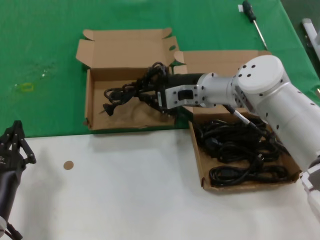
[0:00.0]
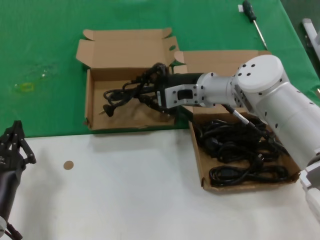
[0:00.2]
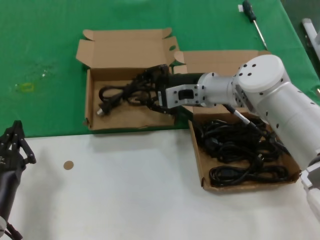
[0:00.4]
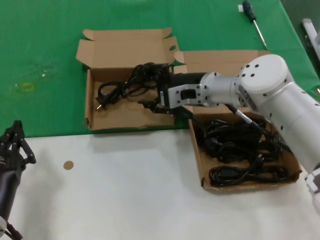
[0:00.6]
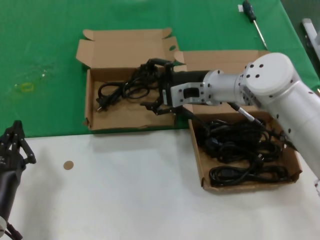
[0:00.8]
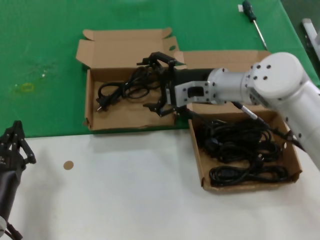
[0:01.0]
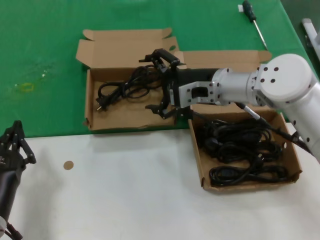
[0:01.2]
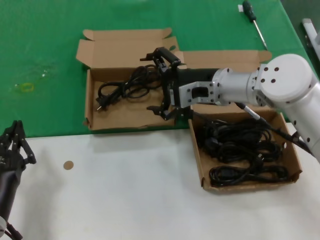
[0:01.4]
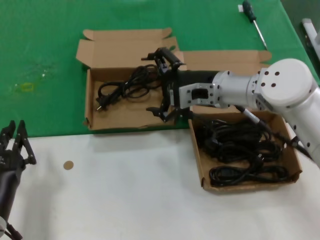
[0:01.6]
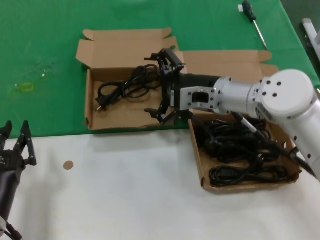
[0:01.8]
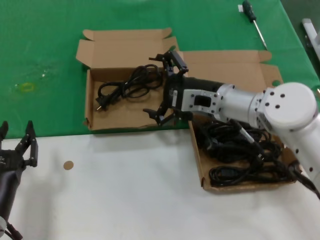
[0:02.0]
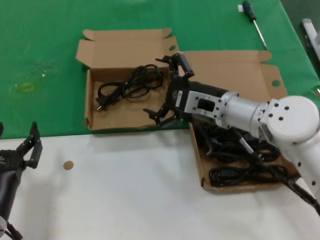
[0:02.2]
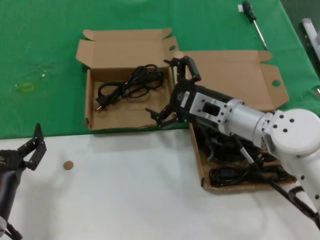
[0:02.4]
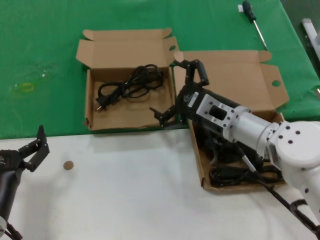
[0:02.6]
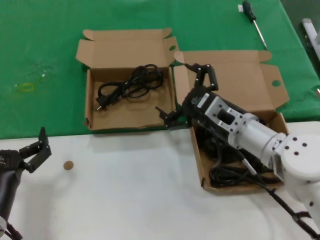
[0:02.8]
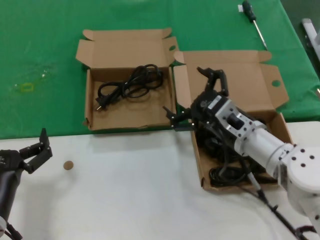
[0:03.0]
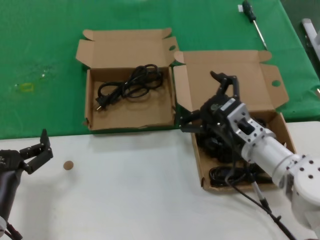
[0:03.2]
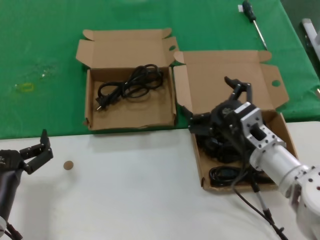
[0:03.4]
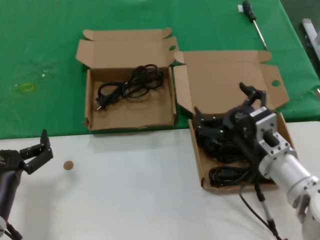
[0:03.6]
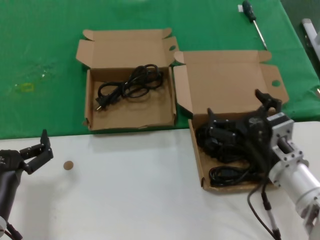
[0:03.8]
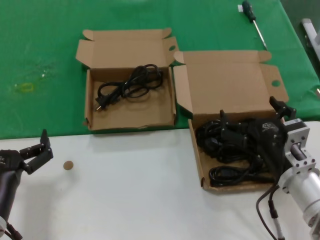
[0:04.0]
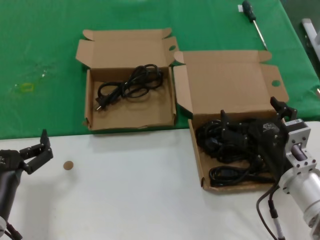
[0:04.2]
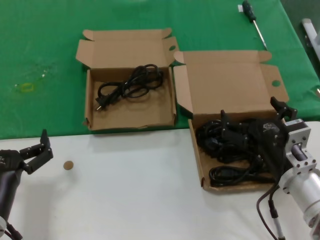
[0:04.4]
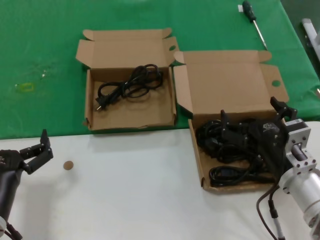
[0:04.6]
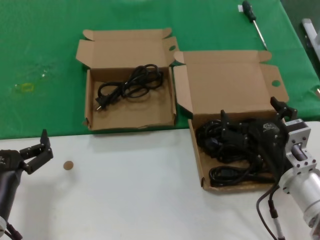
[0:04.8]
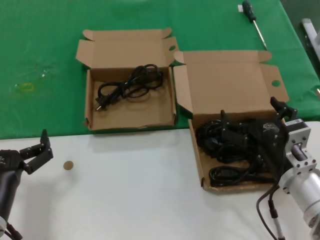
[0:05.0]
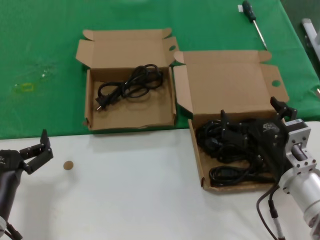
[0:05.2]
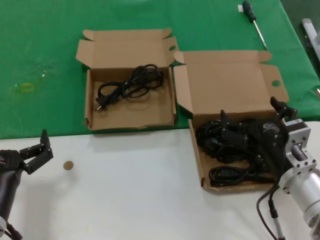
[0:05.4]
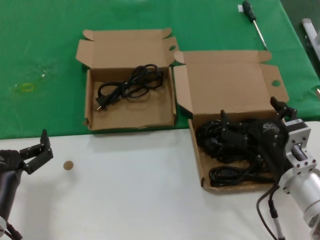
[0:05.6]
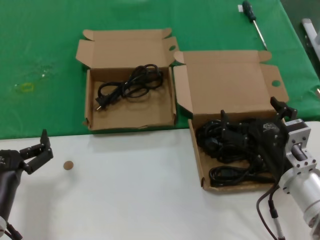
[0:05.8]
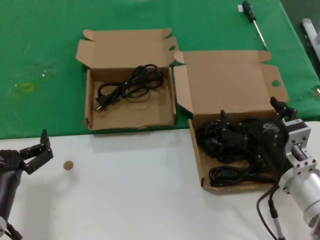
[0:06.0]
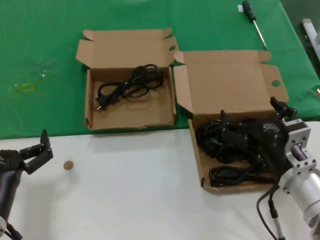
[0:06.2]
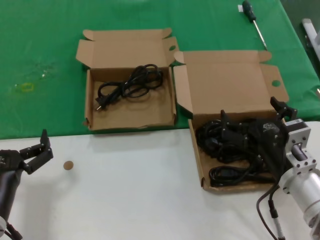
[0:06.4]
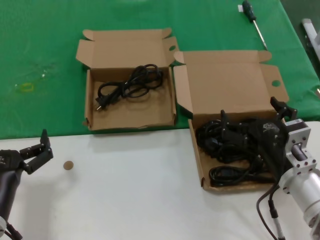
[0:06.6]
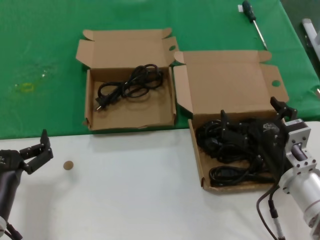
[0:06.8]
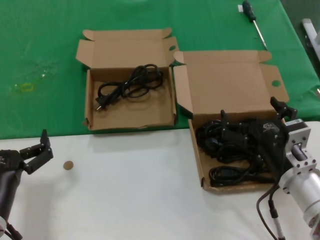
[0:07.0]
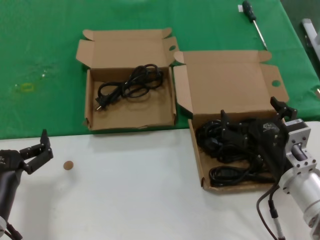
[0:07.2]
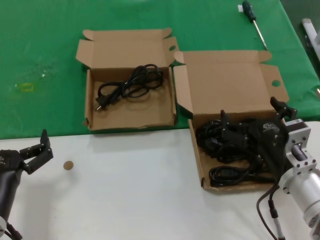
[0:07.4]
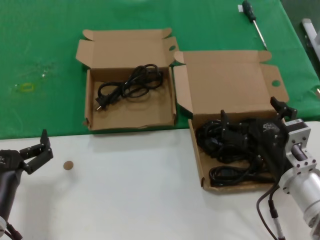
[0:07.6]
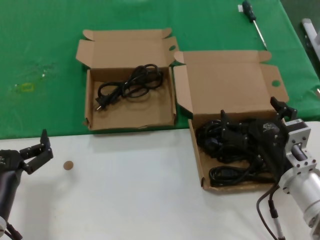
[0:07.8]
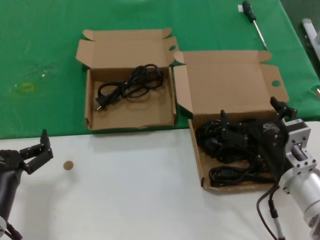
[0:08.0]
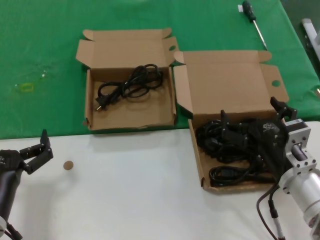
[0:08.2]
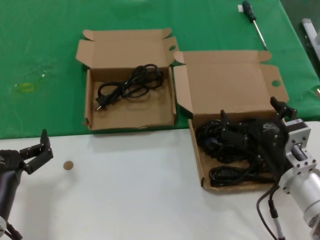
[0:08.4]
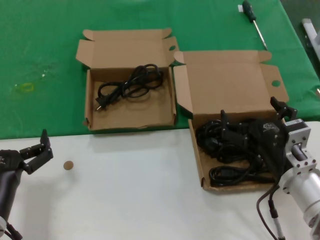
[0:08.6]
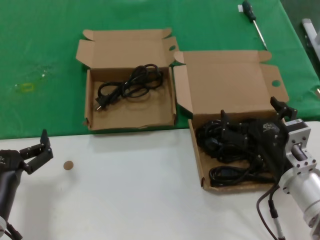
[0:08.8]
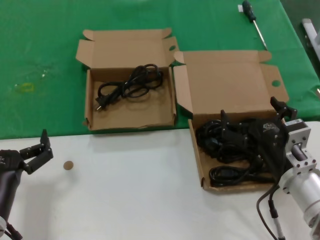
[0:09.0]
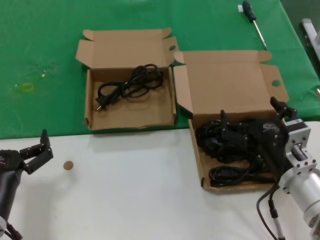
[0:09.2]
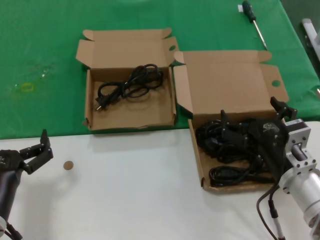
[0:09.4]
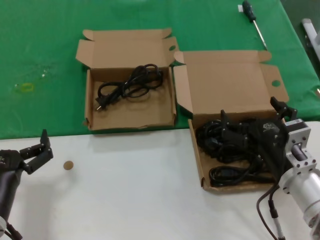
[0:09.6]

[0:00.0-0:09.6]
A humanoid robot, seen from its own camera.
Task of the whole recording: take the parts from the box containing them and put them into an empty box.
0:00.0 to 0:01.6: The hands make only small movements.
0:01.6 to 0:03.2: The right hand moves backward and downward, roughly 15 cm.
0:03.2 to 0:04.8: The right hand moves backward, about 10 cm.
0:04.8 to 0:09.6: The two hands keep their place.

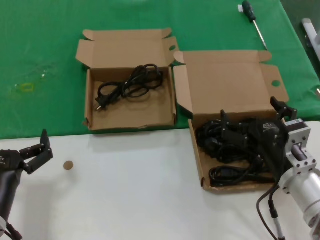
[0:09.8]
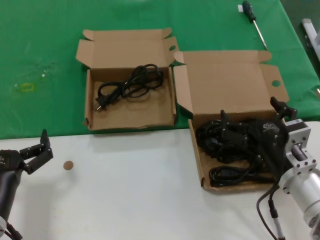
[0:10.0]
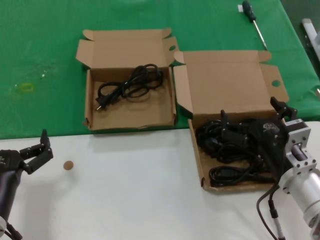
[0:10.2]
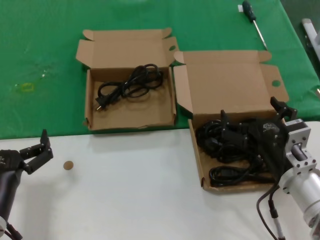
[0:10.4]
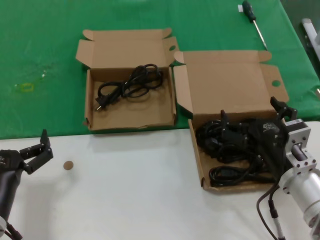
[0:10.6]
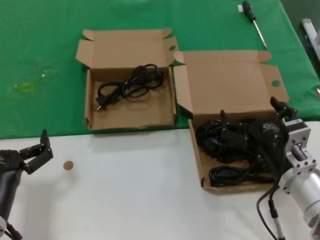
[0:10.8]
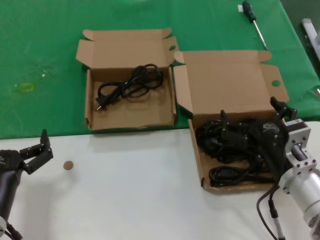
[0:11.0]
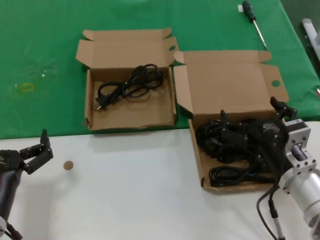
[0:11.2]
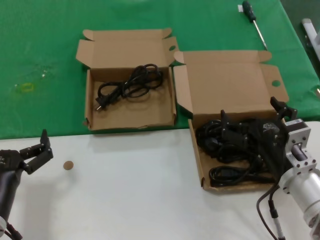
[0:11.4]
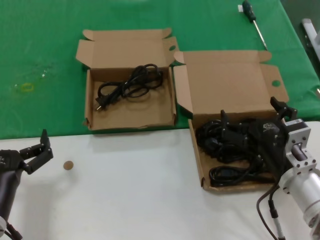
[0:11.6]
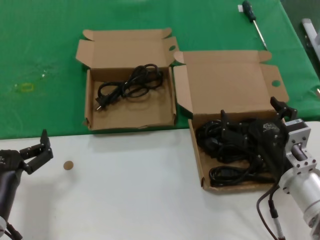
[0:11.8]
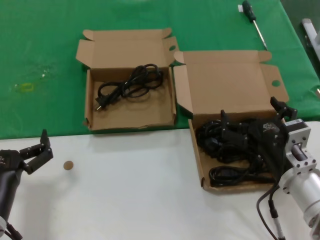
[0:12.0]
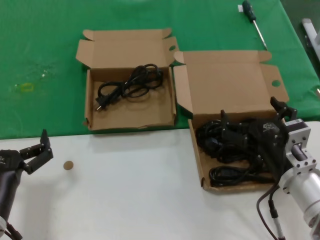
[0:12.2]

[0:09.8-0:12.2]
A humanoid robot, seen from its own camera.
Task of the whole recording: take the parts from the box containing them and put them into an empty box.
0:09.8 to 0:12.2: Neither hand changes place.
